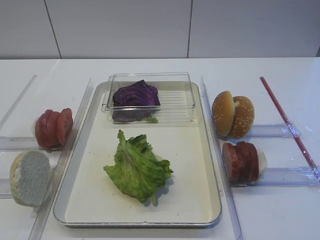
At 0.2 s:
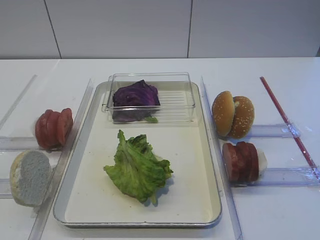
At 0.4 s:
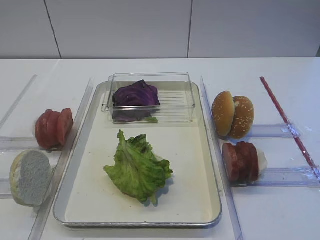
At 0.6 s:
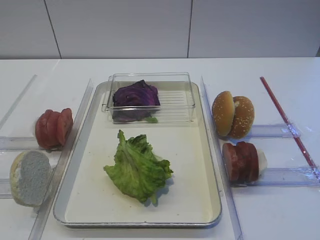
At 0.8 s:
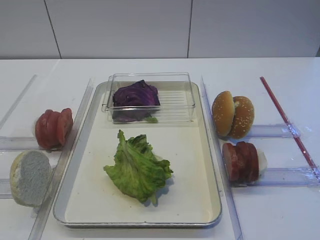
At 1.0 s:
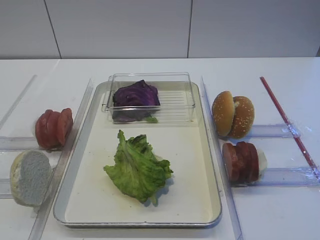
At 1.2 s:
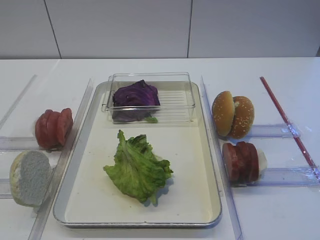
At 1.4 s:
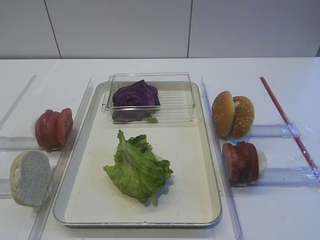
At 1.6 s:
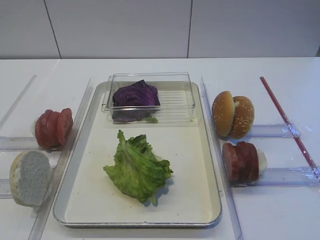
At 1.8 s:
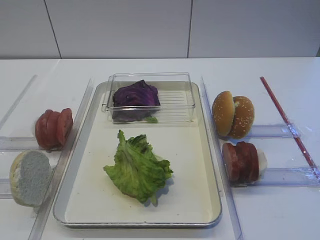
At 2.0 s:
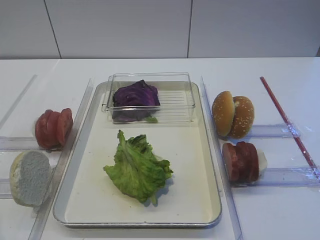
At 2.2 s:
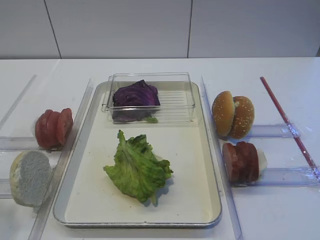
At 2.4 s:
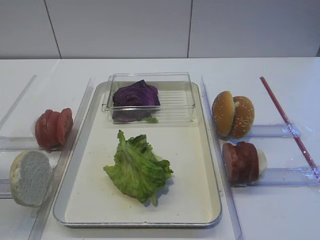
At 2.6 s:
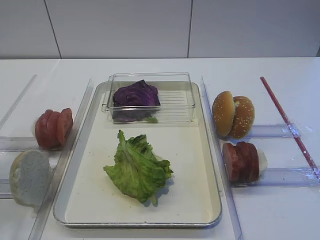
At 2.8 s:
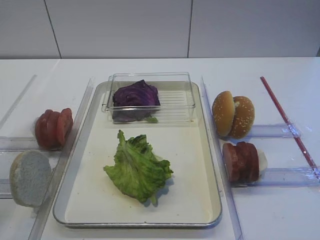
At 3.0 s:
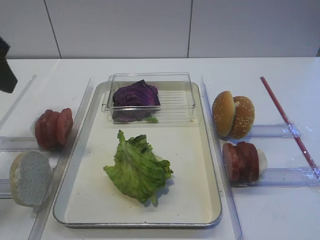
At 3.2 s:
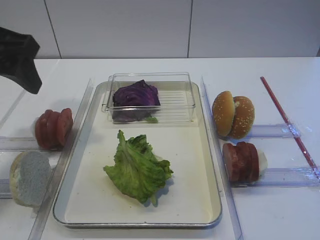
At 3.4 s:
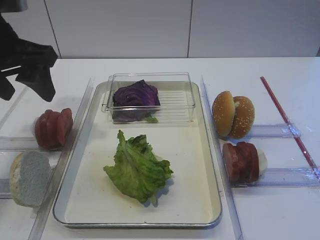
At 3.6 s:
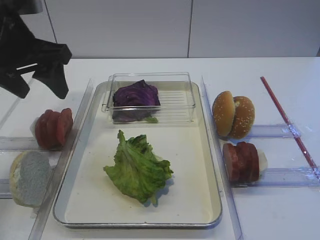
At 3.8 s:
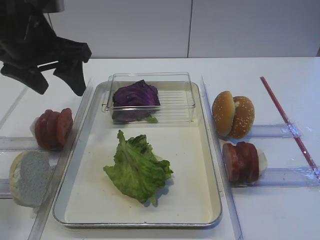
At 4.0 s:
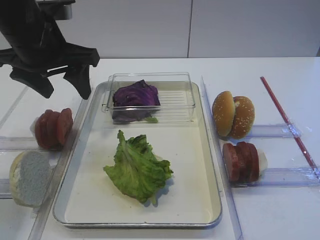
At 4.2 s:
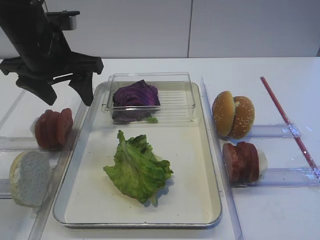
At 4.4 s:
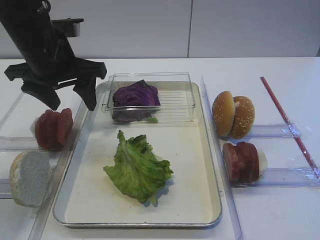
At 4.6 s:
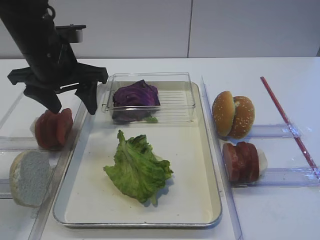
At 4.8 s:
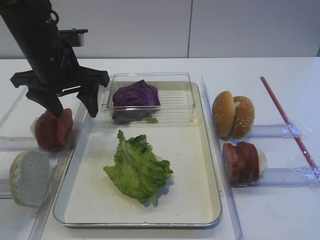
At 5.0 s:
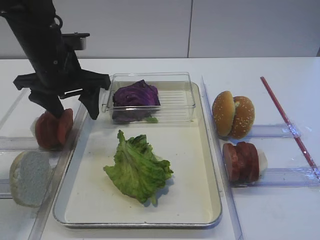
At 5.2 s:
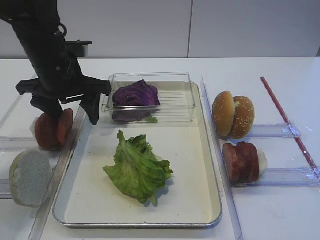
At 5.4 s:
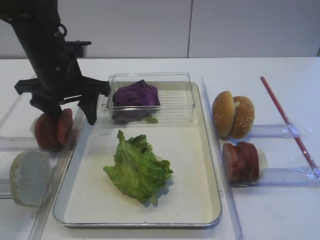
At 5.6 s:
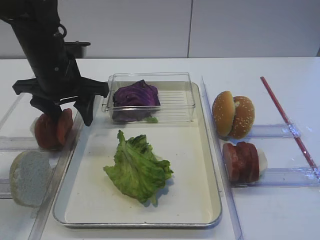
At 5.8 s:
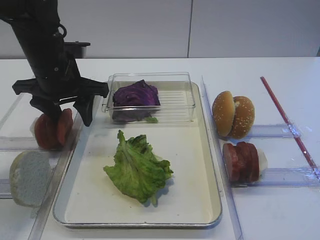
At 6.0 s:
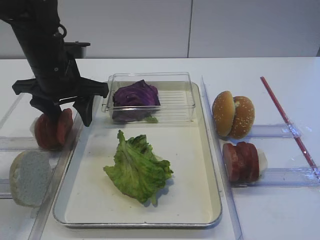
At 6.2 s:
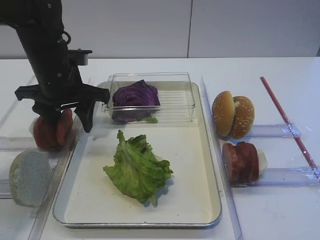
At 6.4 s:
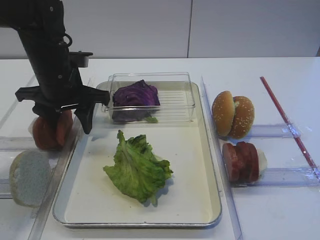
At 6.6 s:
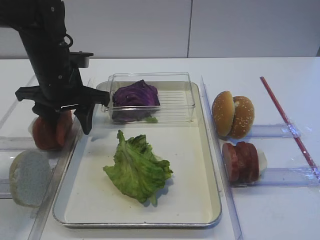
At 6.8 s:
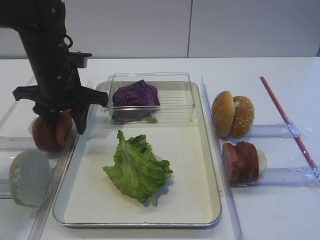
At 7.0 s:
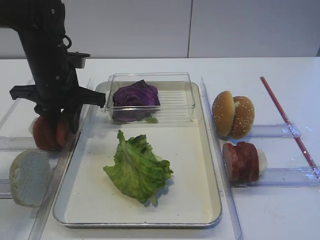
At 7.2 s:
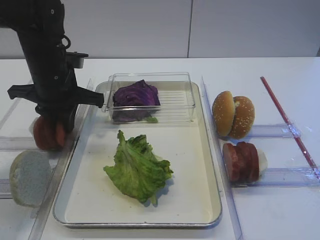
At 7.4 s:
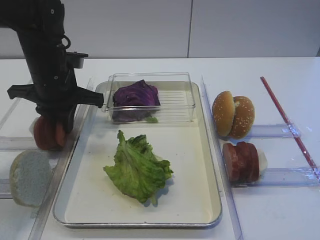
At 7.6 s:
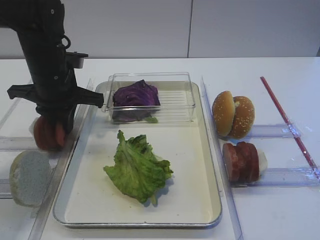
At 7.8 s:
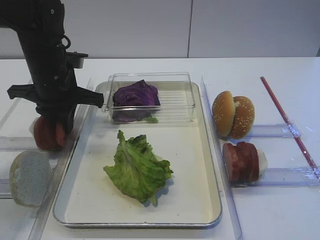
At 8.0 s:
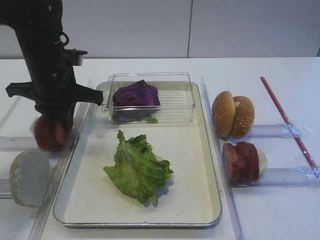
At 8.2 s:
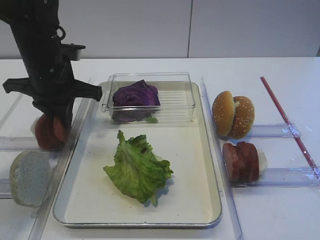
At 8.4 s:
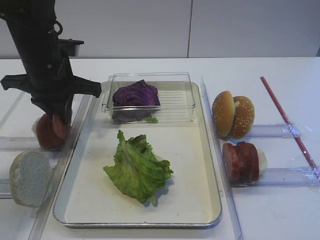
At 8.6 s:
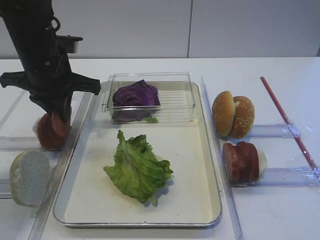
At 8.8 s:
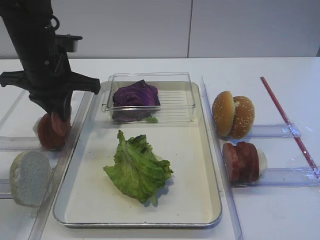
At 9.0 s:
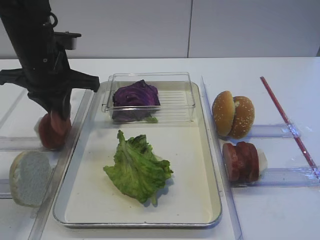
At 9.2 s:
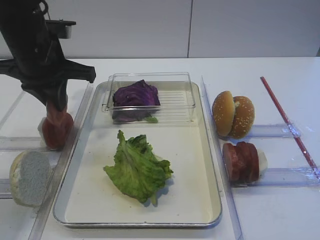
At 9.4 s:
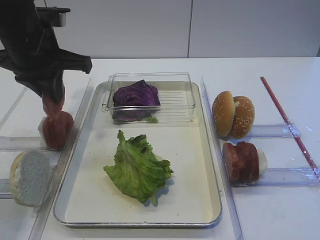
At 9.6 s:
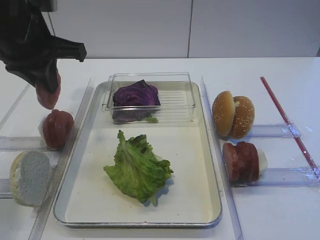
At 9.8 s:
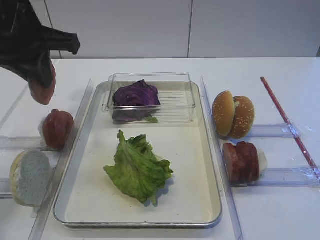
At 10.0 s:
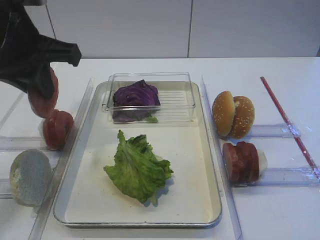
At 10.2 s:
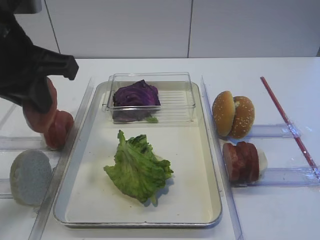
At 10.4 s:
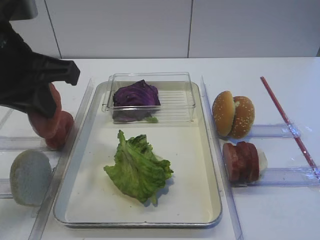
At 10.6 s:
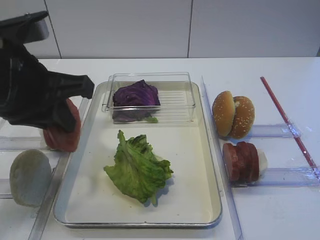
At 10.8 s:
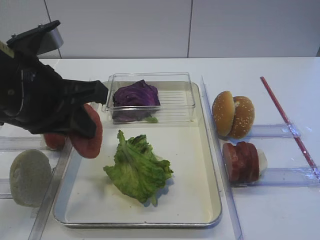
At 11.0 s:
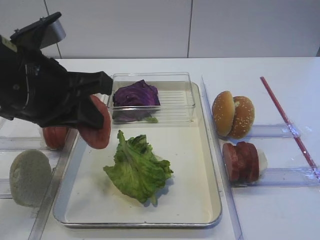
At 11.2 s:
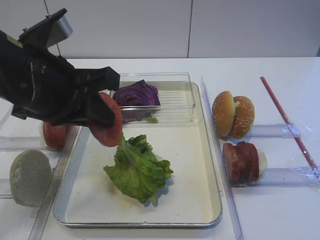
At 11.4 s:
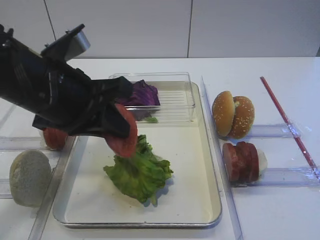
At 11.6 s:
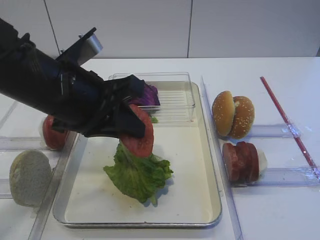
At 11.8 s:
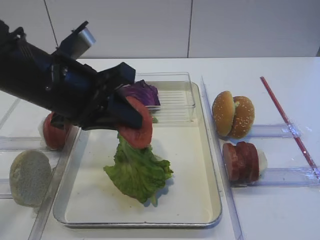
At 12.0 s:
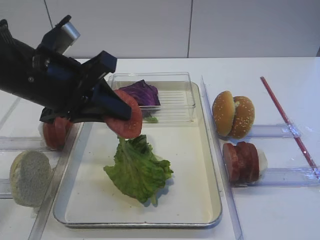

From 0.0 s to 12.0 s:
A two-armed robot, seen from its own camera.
Step, from 0.0 s to 9.8 s: Pick up the tomato slice with the left gripper.
From 1.6 s to 3.0 s: The left gripper heads forward and upward, covering roughly 25 cm.
From 3.0 s to 4.4 s: The left gripper travels forward, downward and to the right by roughly 15 cm.
From 4.4 s to 6.0 s: There are only small adjustments of the grippers.
From 6.0 s to 7.6 s: The left gripper closes its fingers.
From 7.6 s to 9.0 s: There are only small adjustments of the grippers.
From 9.0 s to 10.4 s: The left gripper shifts some 15 cm backward and upward.
From 10.4 s to 12.0 s: The left gripper heads downward, covering about 5 cm.

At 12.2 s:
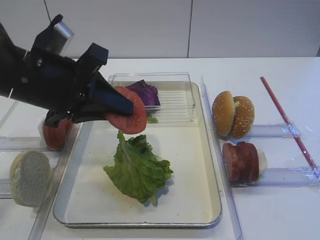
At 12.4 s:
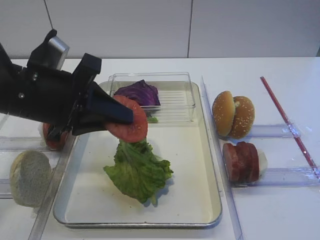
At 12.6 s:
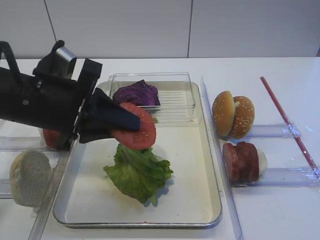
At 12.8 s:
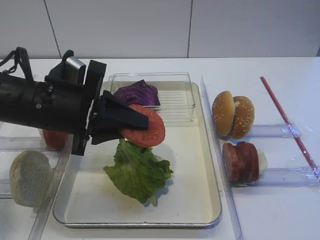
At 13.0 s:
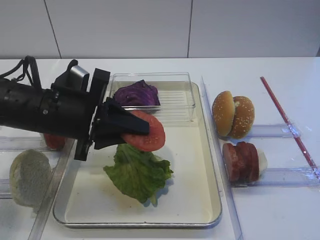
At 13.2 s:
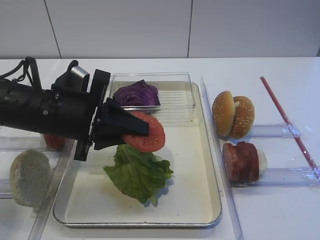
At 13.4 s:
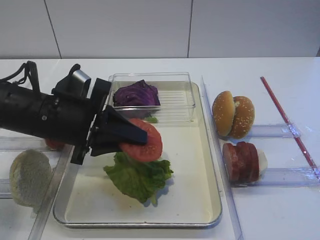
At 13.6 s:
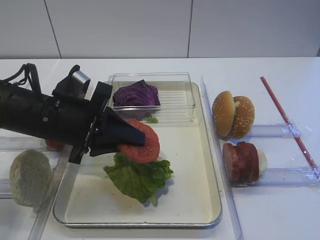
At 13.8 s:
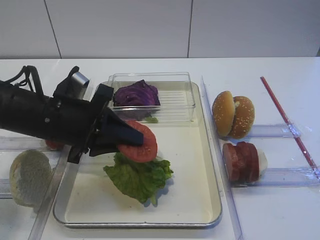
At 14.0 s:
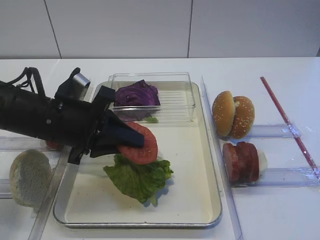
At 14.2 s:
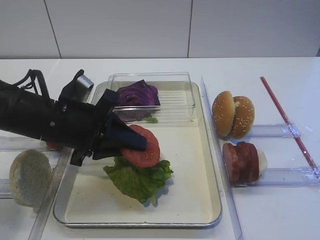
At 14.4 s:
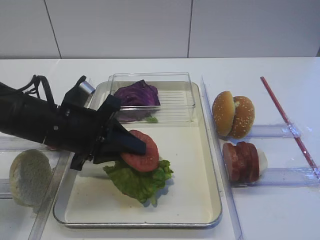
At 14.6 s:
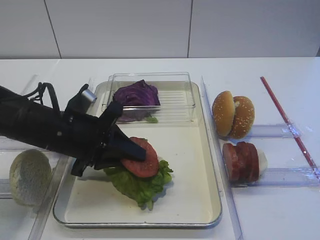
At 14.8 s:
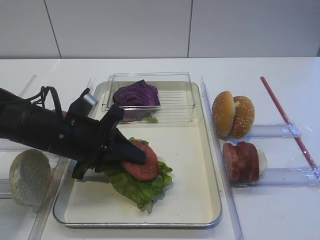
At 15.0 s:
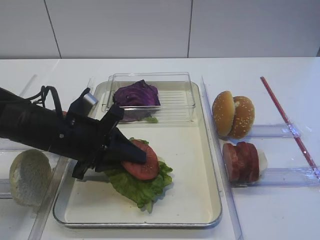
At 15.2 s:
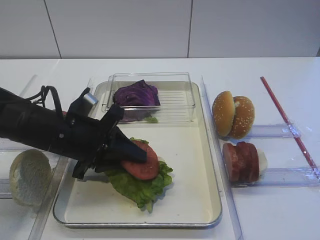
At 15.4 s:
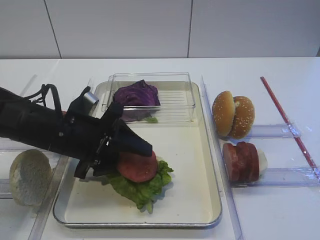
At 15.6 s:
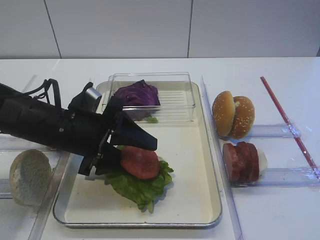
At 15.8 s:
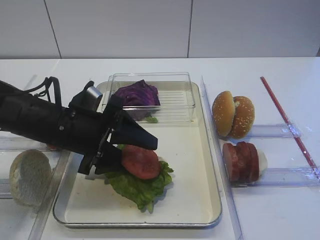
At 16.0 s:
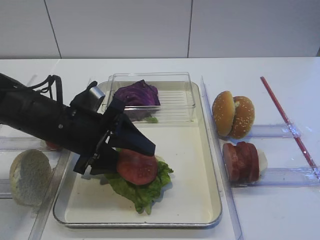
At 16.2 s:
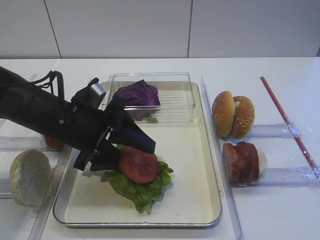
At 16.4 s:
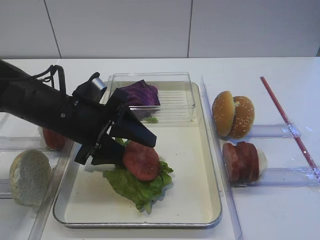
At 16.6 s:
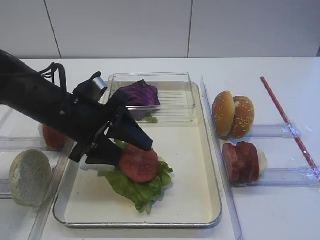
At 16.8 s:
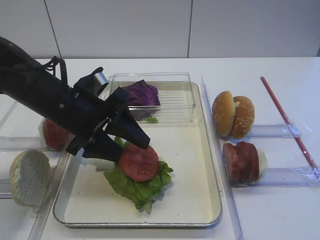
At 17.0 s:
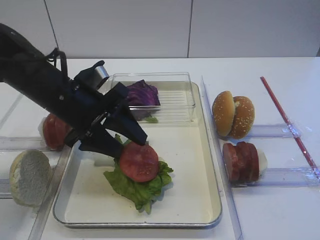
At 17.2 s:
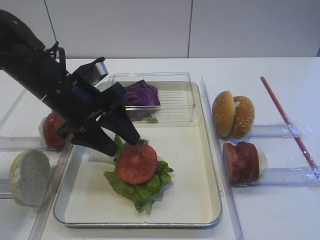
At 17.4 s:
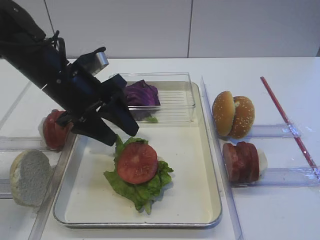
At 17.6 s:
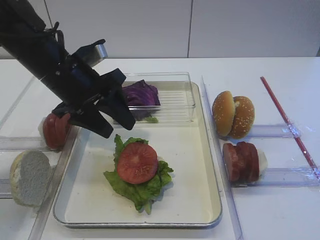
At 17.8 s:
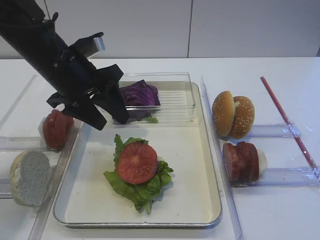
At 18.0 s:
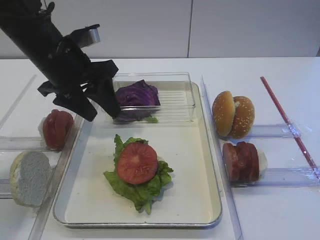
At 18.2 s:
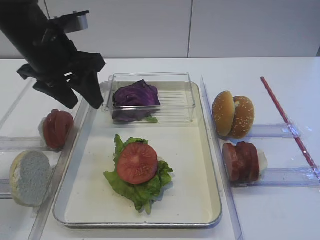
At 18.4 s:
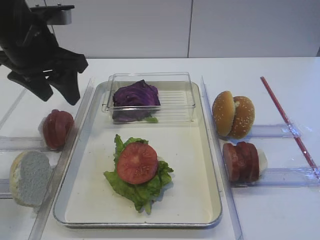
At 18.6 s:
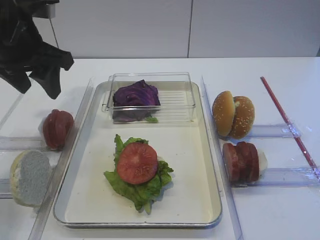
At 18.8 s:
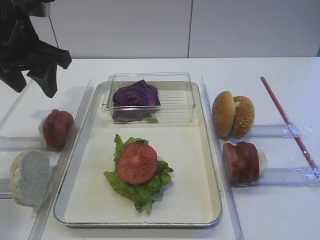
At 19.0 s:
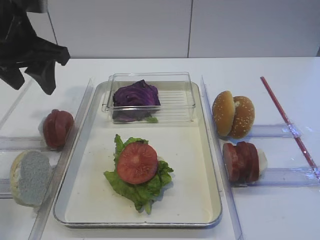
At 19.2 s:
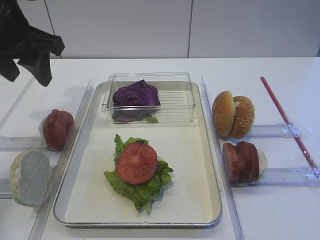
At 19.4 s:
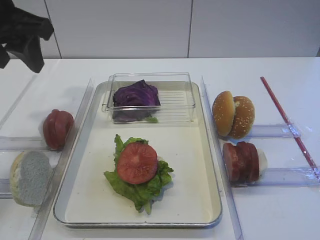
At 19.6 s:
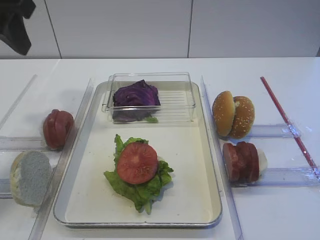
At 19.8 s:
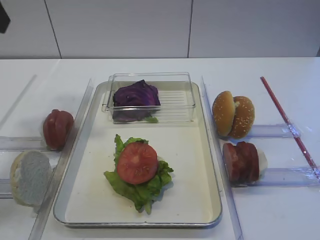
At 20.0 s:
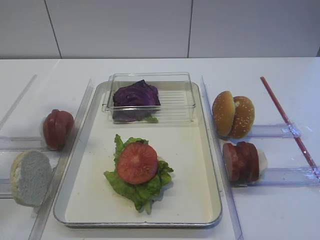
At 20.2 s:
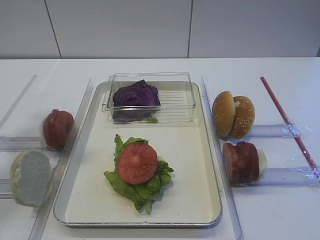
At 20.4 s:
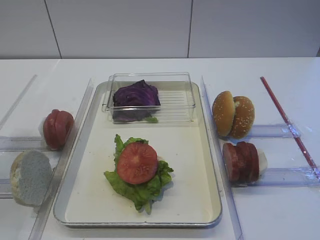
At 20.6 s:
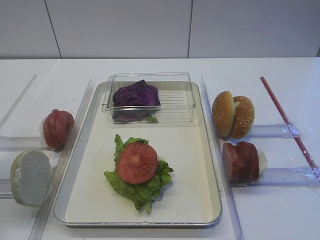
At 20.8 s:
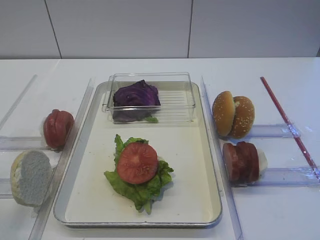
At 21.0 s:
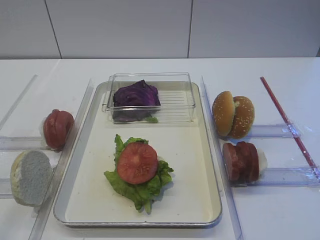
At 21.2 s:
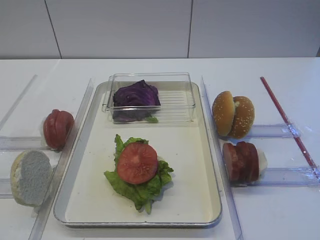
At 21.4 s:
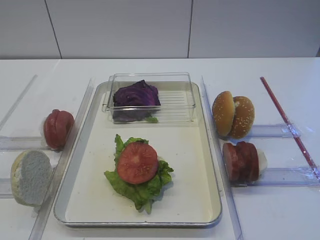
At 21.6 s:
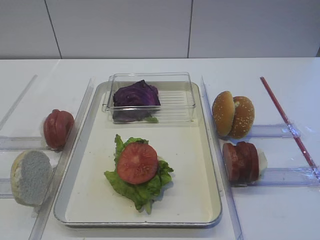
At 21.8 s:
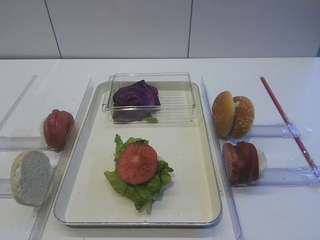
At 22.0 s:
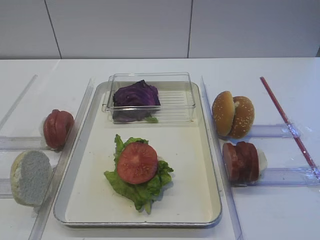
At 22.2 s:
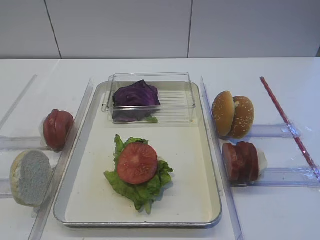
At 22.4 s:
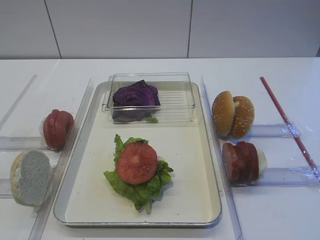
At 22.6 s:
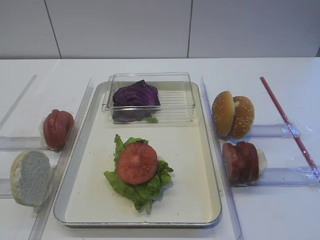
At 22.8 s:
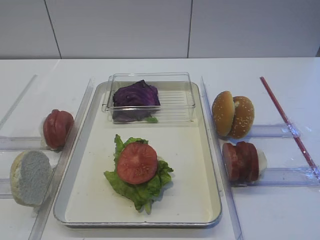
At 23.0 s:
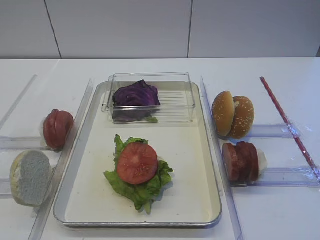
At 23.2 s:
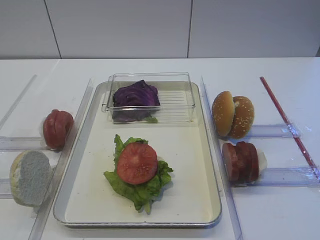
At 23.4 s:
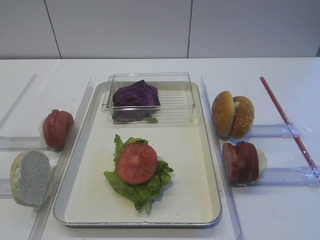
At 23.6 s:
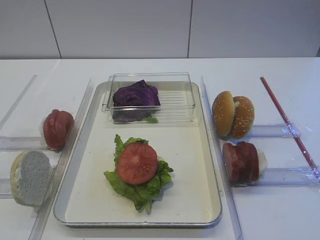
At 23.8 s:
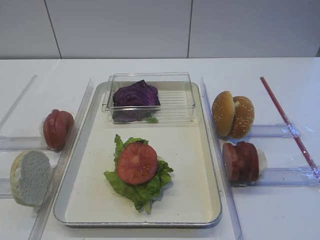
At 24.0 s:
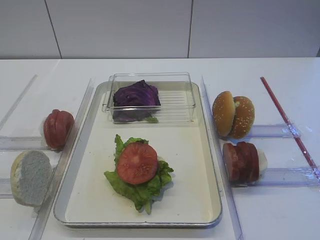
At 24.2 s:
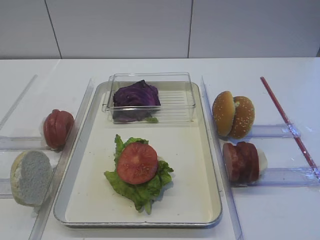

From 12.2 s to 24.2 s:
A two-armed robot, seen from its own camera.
Step, from 12.2 s to 17.4 s: Place the tomato slice on the lettuce leaf with the left gripper.
From 12.2 s to 13.8 s: The left gripper shifts approximately 5 cm downward.
From 13.8 s to 15.2 s: There are only small adjustments of the grippers.
From 15.2 s to 16.6 s: The left gripper opens up.
From 16.6 s to 18.2 s: The left gripper goes approximately 10 cm upward and forward.
From 18.2 s to 19.8 s: The left gripper goes approximately 20 cm upward, backward and to the left.
From 19.8 s to 21.2 s: The left gripper moves backward, some 30 cm.
From 22.6 s to 24.2 s: Both grippers stay about where they are.
